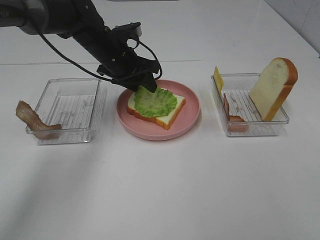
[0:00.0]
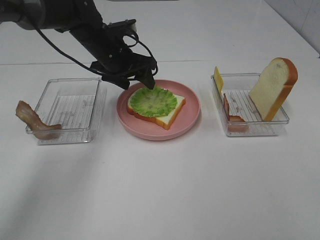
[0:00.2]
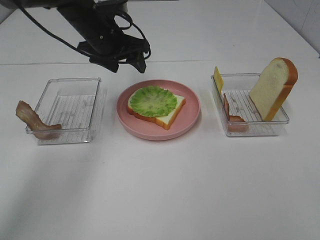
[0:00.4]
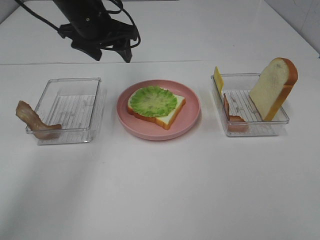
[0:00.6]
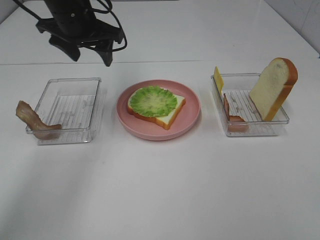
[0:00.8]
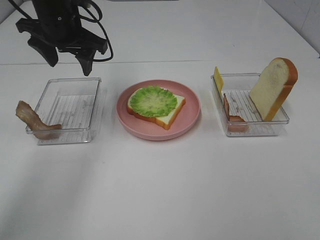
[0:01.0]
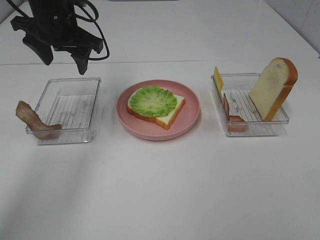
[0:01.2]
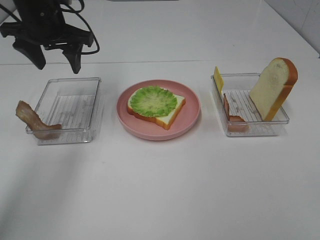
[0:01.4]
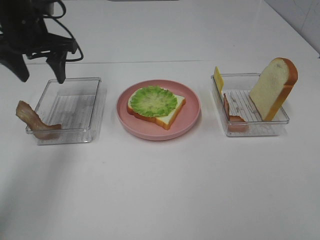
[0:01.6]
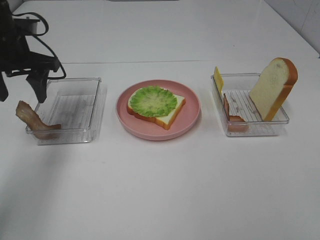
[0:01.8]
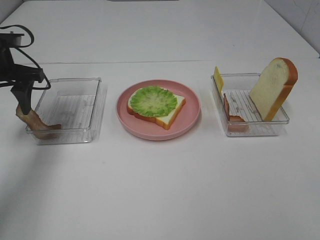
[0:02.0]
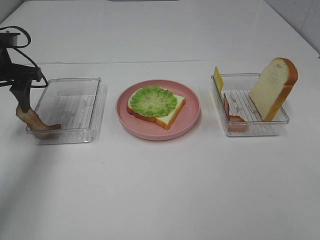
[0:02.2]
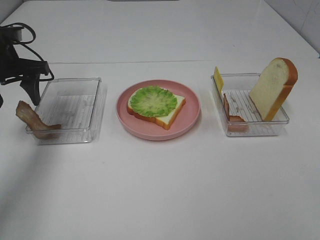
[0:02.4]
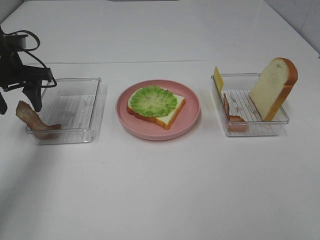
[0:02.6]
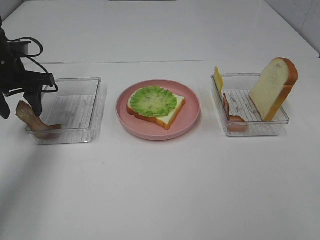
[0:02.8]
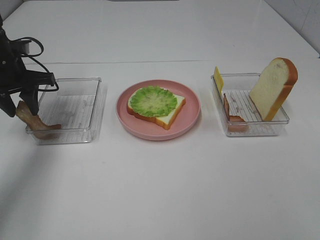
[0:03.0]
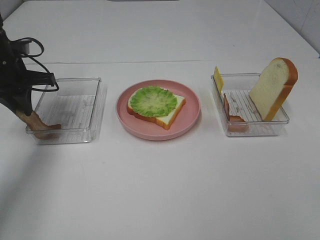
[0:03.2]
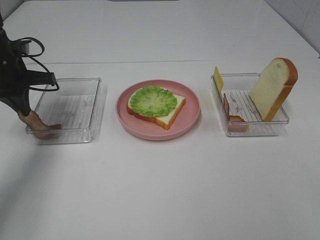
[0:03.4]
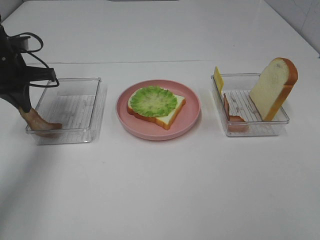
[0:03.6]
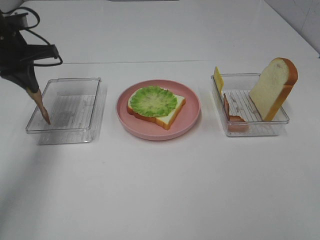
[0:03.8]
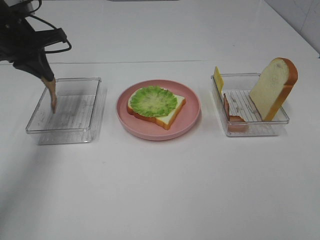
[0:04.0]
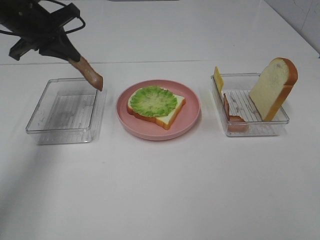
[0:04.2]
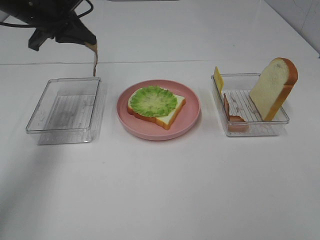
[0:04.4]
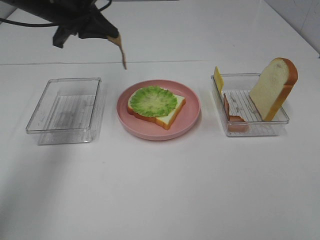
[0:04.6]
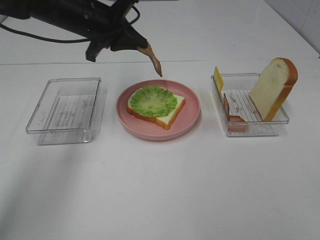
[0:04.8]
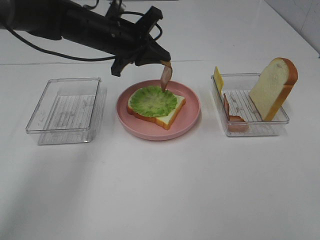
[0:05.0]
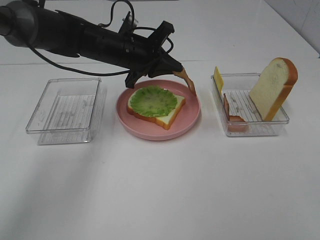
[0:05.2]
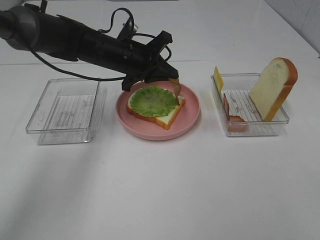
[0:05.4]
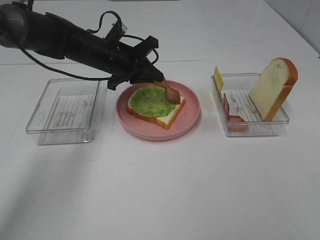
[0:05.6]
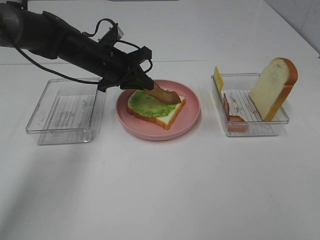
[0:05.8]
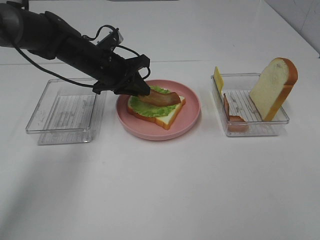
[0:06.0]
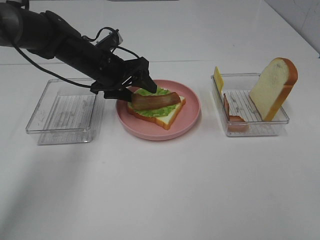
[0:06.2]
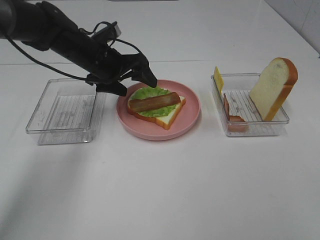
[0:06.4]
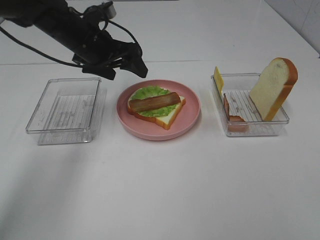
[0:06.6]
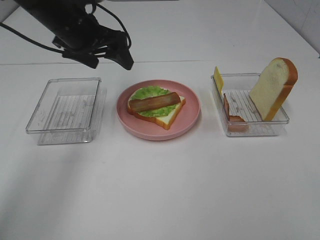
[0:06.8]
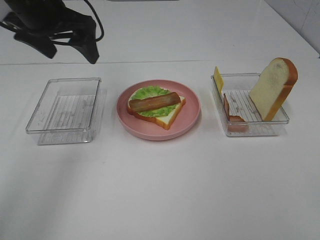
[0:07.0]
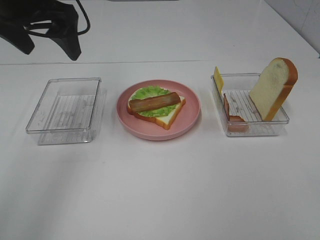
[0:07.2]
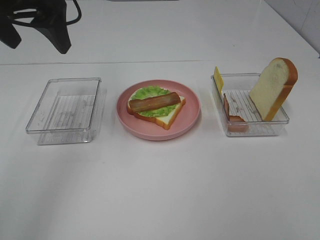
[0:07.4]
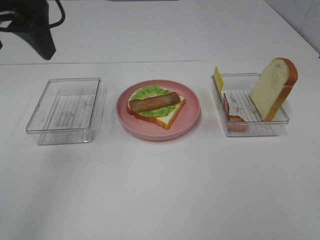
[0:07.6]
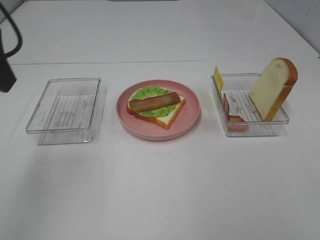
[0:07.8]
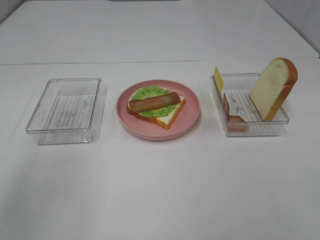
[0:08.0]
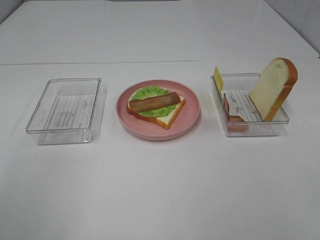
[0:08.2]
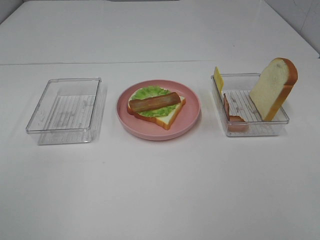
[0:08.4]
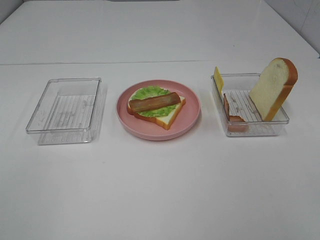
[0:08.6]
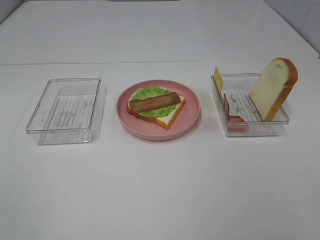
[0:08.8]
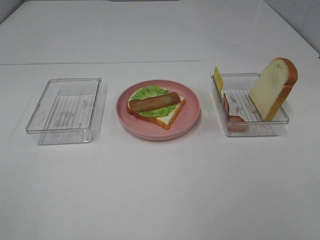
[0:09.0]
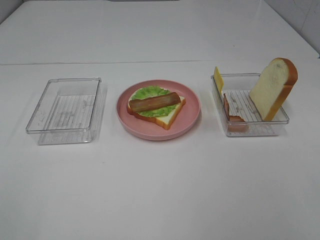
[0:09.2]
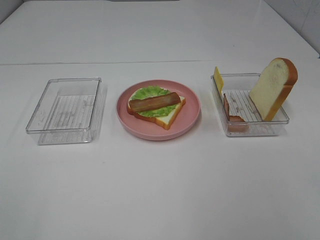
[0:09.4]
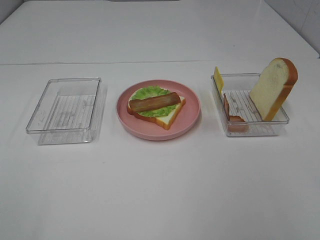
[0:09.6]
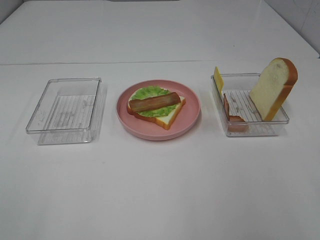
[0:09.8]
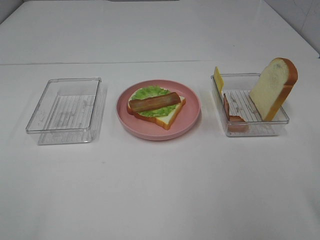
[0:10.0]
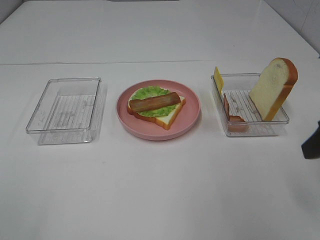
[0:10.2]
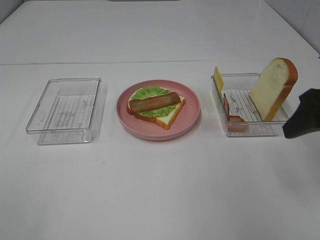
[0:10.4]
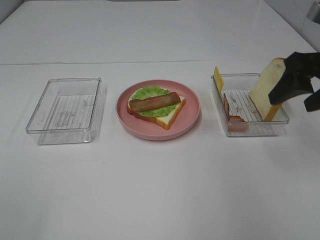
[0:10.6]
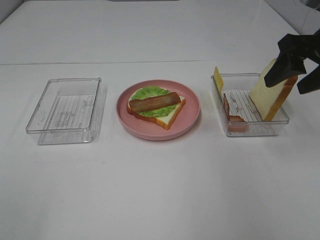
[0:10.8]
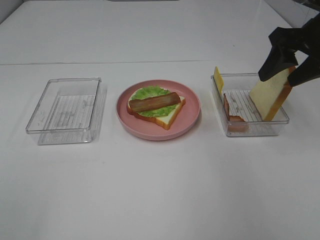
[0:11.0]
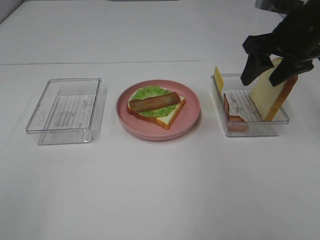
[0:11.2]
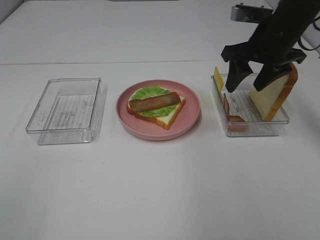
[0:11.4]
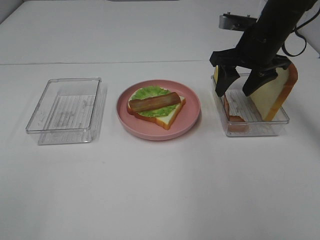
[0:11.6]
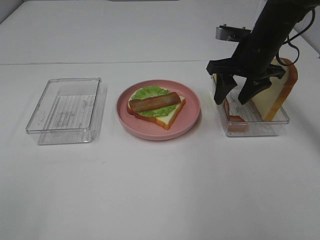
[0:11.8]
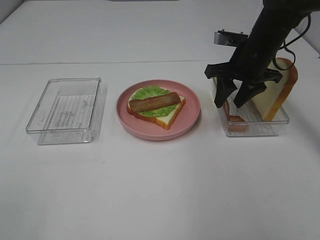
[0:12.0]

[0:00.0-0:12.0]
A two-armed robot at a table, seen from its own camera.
Task of the whole recording: Make sandwiches.
Step, 0:00.6 to 0:03.6: Left hand:grab the bacon.
Step, 0:03.8 to 0:06.4: Left hand:place bacon on lettuce slice.
0:00.0 to 0:01.6: The left gripper heads to the left and upward, covering approximately 15 cm.
0:01.6 to 0:03.0: The left gripper heads downward and to the left, covering roughly 10 cm.
0:03.0 to 0:04.4: The left gripper heads upward and to the right, covering about 10 cm, and closes up.
0:04.4 to 0:06.0: The left gripper travels downward and to the right by approximately 15 cm.
0:06.0 to 0:07.6: The left gripper moves upward, backward and to the left, roughly 25 cm, and opens its fingers.
0:07.6 to 0:09.0: The left gripper heads backward, covering some 30 cm.
0:09.0 to 0:10.4: The right gripper heads forward, covering some 25 cm.
0:10.4 to 0:12.0: The right gripper is displaced forward and to the left by approximately 20 cm.

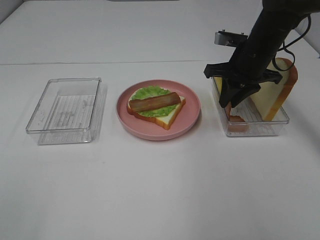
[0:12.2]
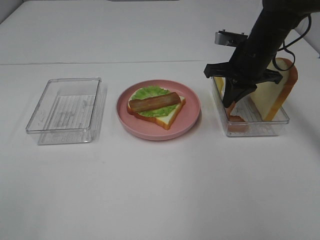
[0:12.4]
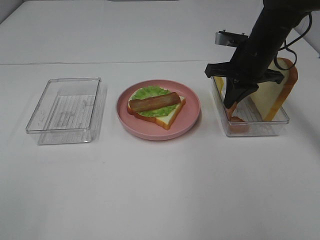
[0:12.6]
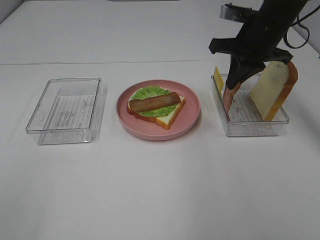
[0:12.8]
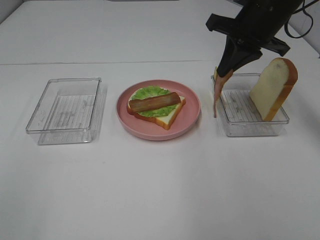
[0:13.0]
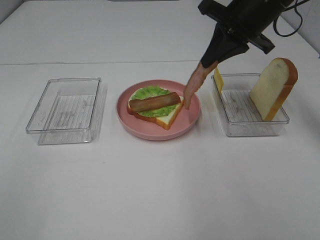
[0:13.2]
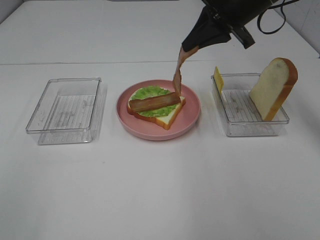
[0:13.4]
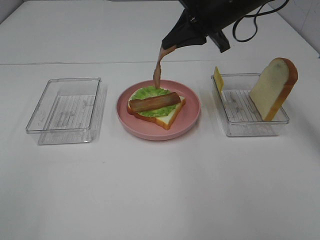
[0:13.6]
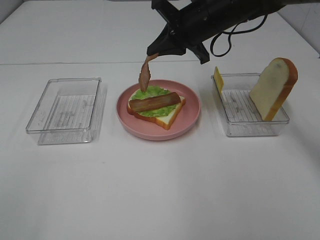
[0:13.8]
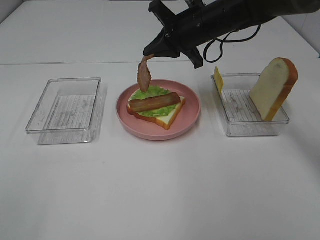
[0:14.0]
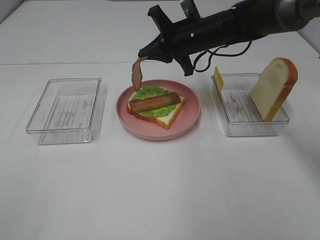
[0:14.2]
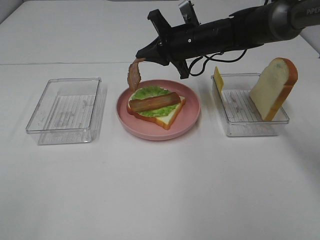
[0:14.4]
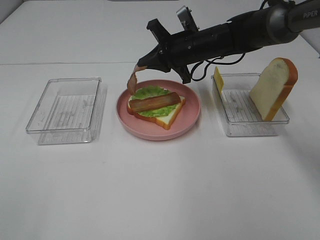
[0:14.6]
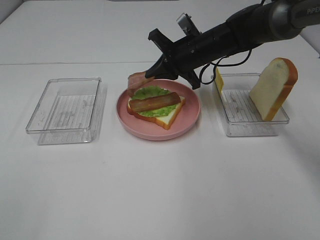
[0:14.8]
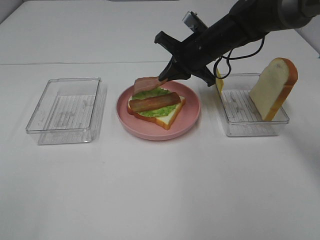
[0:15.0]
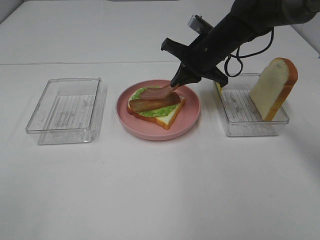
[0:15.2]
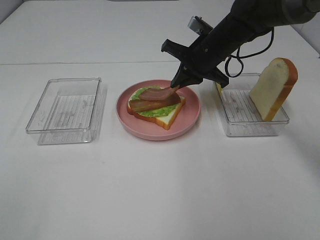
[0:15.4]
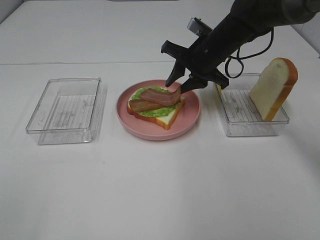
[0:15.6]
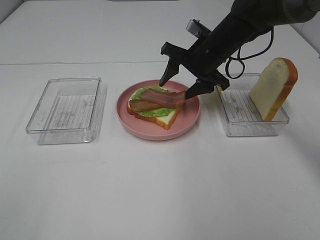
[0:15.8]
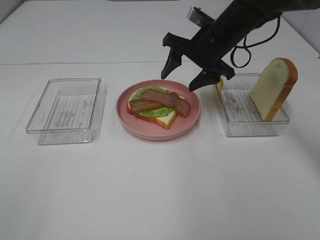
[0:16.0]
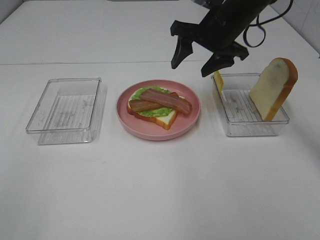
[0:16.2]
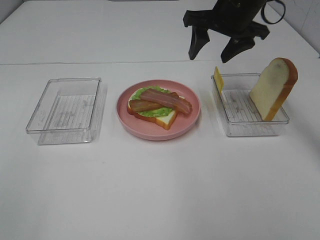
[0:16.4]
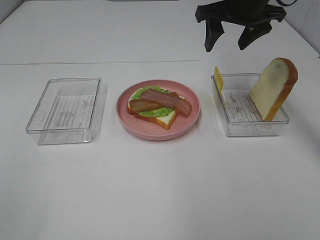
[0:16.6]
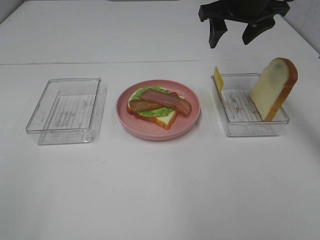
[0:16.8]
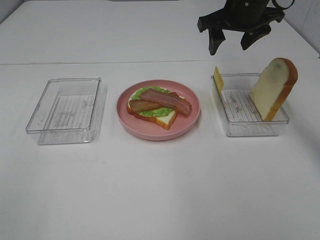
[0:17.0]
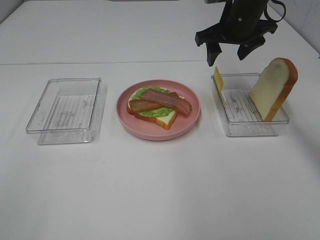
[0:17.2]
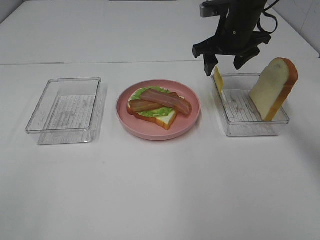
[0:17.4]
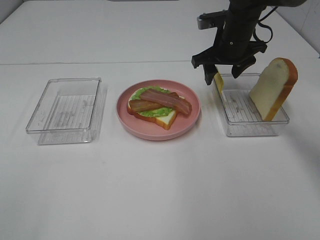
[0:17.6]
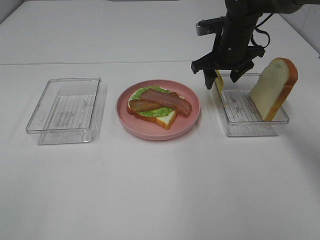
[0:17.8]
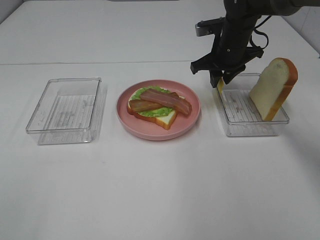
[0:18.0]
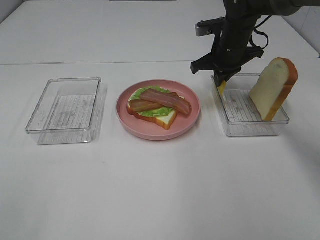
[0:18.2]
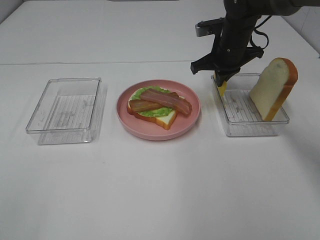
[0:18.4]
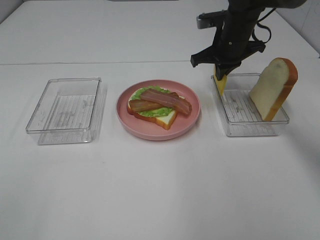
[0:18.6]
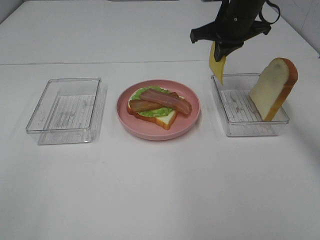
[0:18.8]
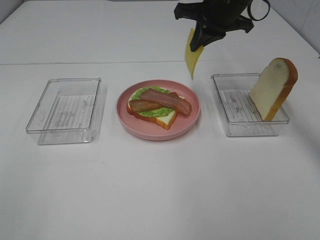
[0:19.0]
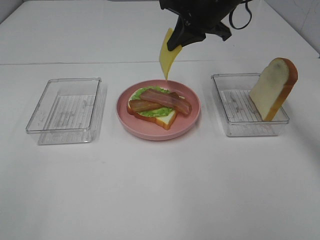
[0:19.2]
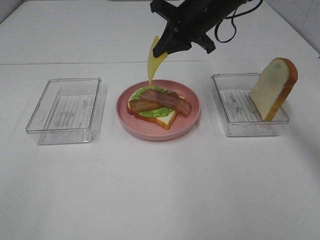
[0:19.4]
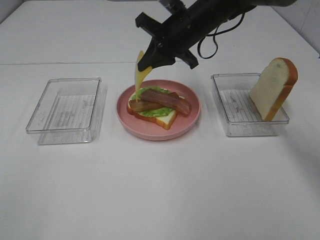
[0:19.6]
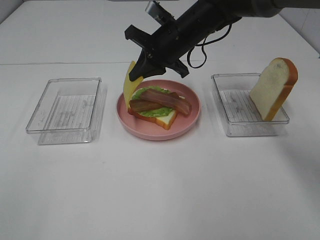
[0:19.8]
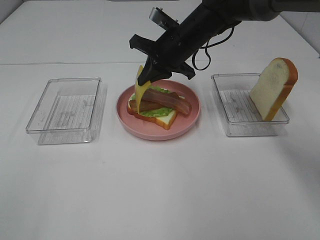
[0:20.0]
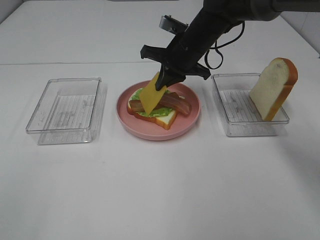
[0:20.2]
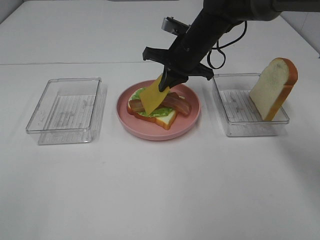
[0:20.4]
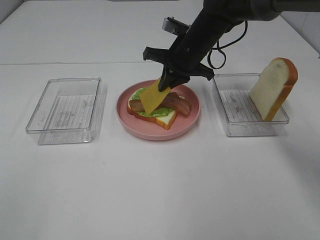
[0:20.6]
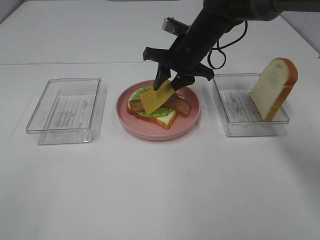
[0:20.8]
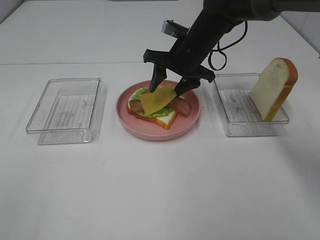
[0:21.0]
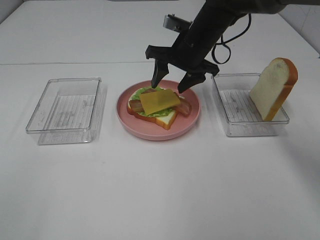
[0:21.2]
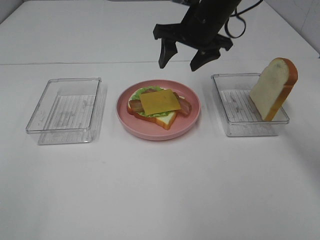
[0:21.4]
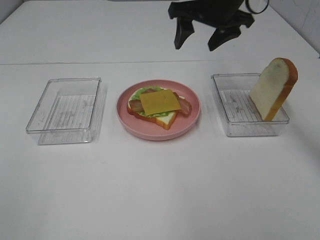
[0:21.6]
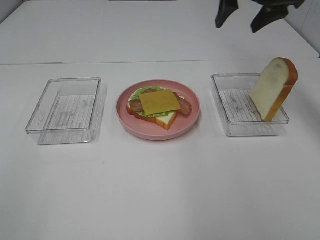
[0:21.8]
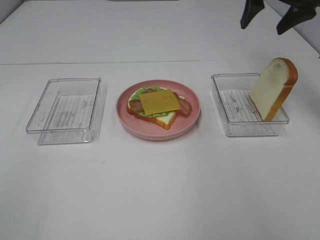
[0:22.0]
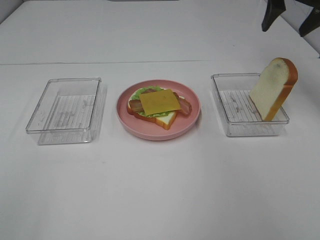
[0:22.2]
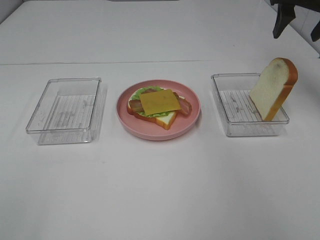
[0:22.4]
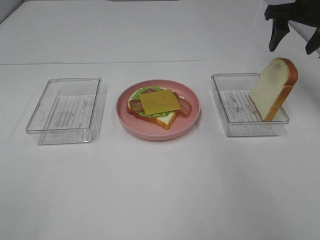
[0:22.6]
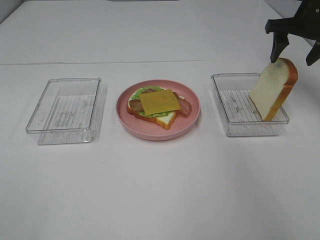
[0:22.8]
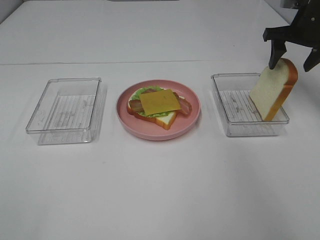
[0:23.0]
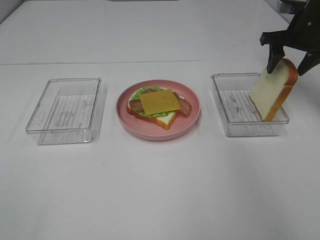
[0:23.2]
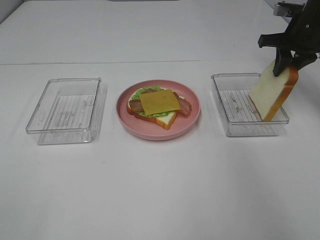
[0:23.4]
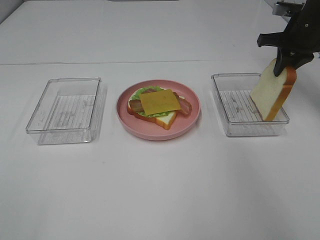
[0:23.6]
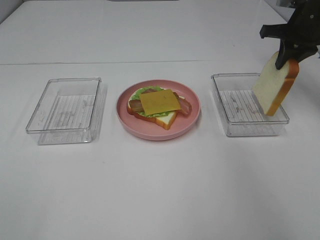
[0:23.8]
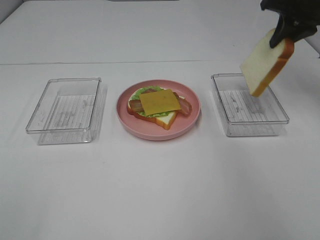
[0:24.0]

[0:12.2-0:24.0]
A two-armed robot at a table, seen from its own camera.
Task of the whole recording: Make sandwiches.
Step, 0:12.8 to 0:16.4: Right hand:place bacon on bacon.
Step, 0:16.6 to 0:18.0: Right hand:grab the cheese slice.
Step, 0:18.2 to 0:21.2: Right hand:place the cheese slice on top of the bacon.
Step, 0:21.4 to 0:23.6: Right hand:grab the bread slice.
0:12.2 to 0:13.6: The right gripper travels upward and to the left by approximately 10 cm.
0:13.6 to 0:15.2: The right gripper heads downward, covering approximately 10 cm.
0:15.2 to 0:16.6: The right gripper is displaced upward by approximately 10 cm, and opens its fingers.
0:16.6 to 0:18.2: The right gripper heads downward, covering some 10 cm, and closes its fingers.
0:18.2 to 0:19.6: The right gripper travels to the left by roughly 10 cm.
0:19.6 to 0:21.0: The right gripper opens up.
0:21.0 to 0:22.6: The right gripper shifts about 25 cm to the right and upward.
0:22.6 to 0:24.0: The right gripper closes.
